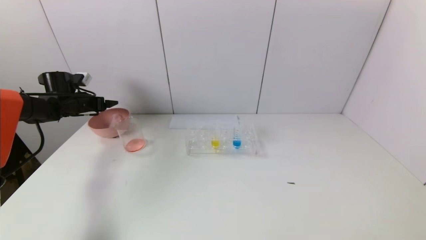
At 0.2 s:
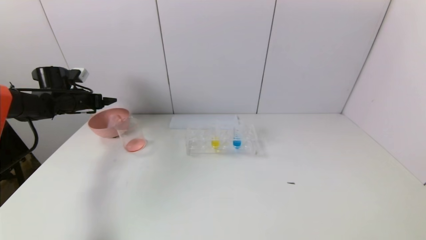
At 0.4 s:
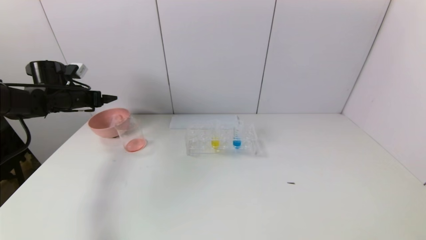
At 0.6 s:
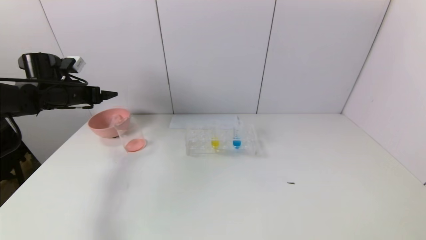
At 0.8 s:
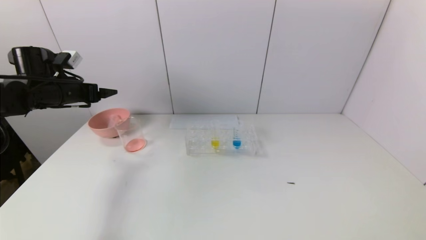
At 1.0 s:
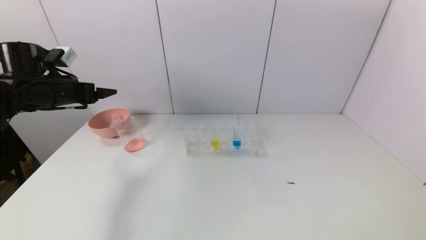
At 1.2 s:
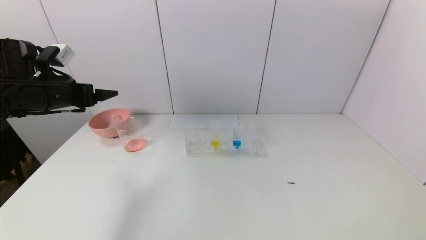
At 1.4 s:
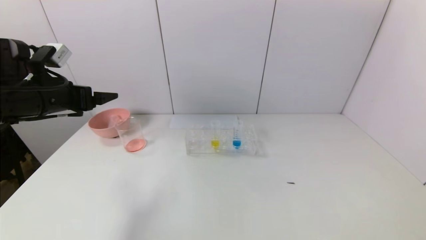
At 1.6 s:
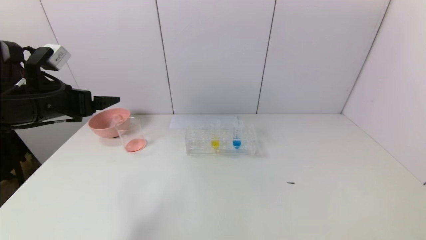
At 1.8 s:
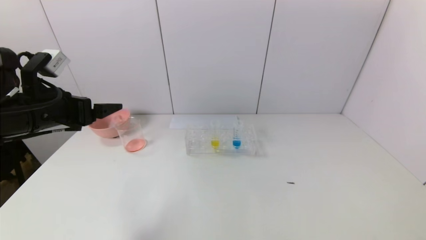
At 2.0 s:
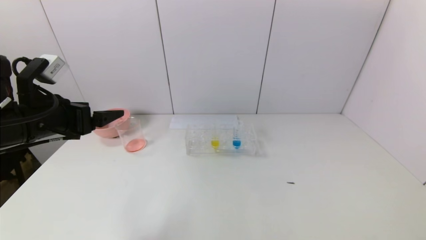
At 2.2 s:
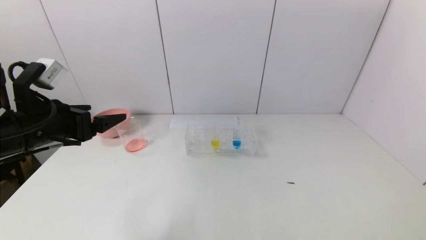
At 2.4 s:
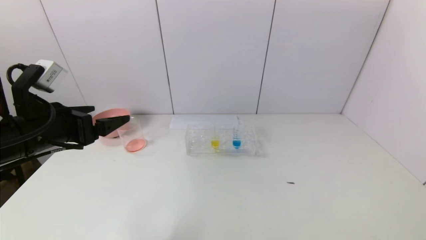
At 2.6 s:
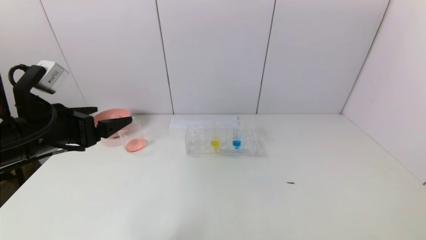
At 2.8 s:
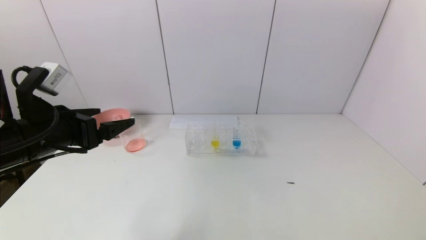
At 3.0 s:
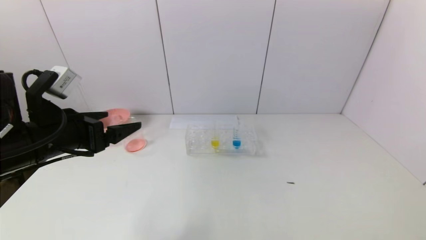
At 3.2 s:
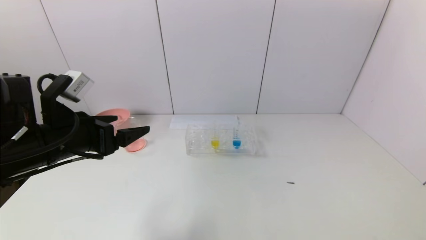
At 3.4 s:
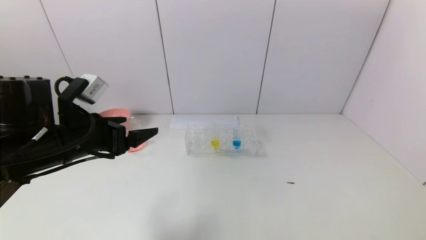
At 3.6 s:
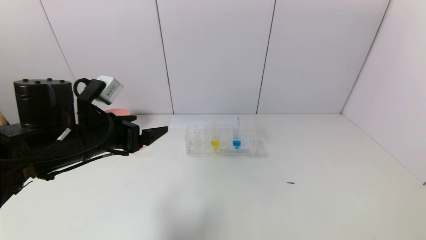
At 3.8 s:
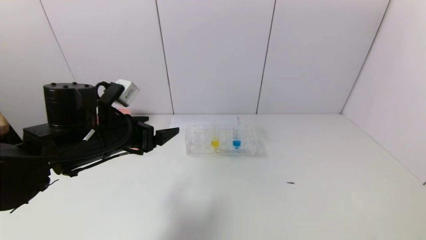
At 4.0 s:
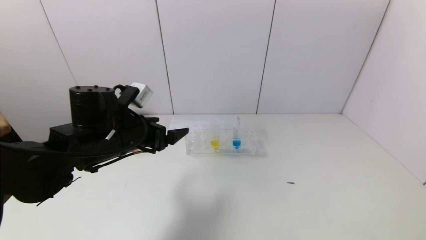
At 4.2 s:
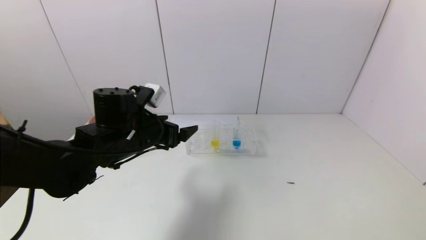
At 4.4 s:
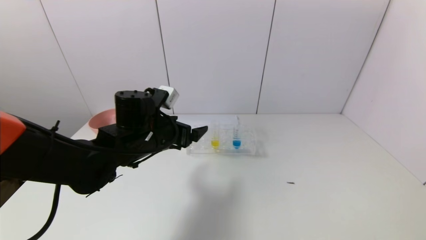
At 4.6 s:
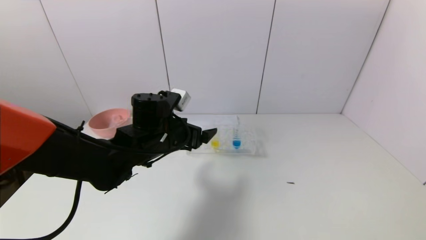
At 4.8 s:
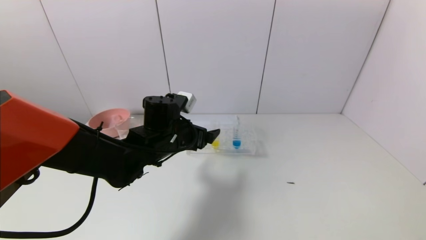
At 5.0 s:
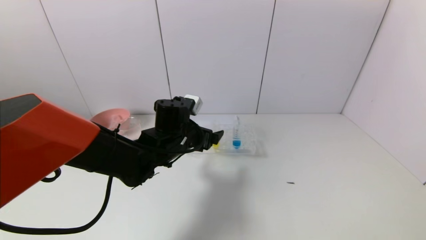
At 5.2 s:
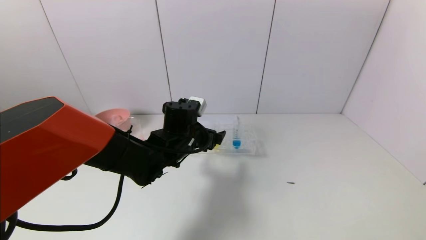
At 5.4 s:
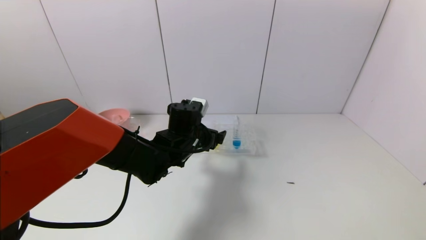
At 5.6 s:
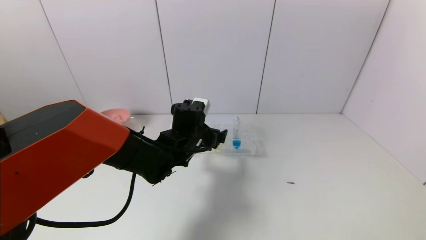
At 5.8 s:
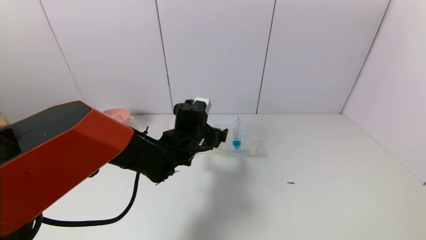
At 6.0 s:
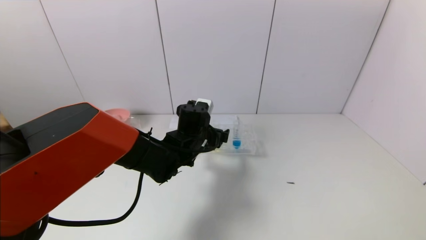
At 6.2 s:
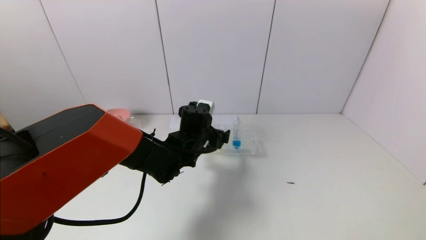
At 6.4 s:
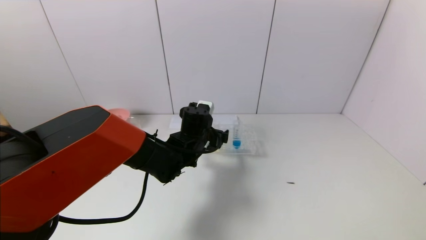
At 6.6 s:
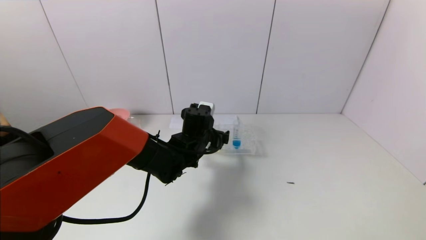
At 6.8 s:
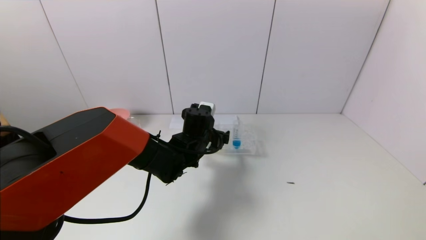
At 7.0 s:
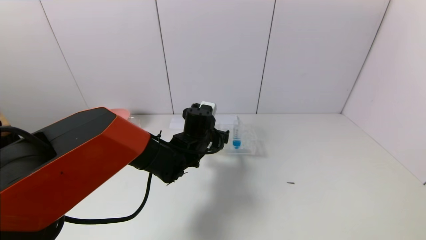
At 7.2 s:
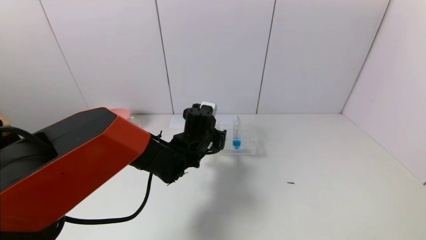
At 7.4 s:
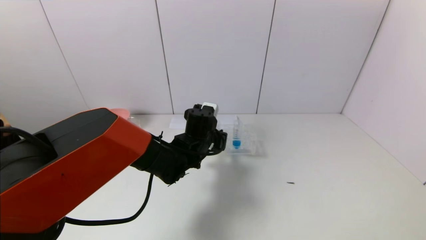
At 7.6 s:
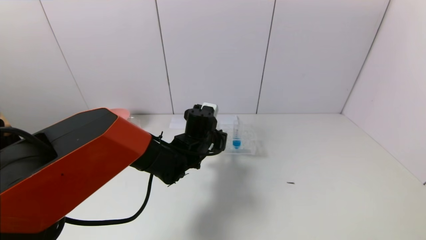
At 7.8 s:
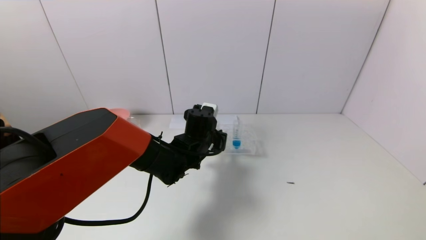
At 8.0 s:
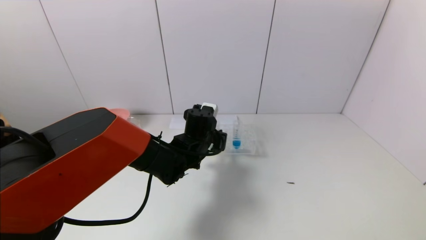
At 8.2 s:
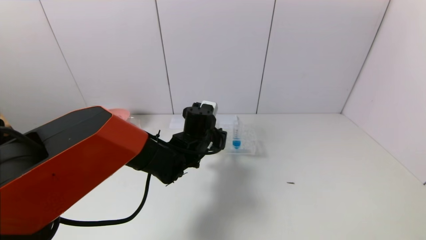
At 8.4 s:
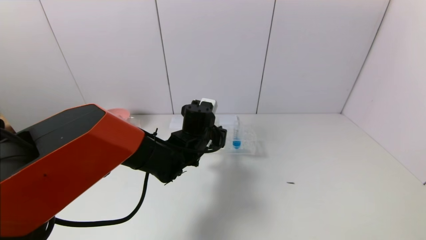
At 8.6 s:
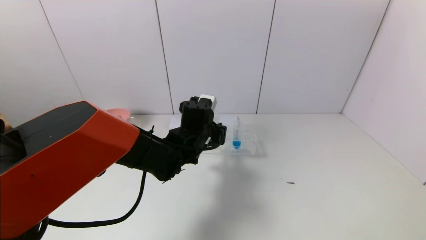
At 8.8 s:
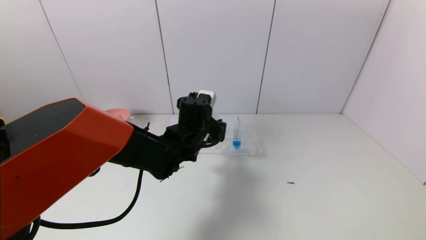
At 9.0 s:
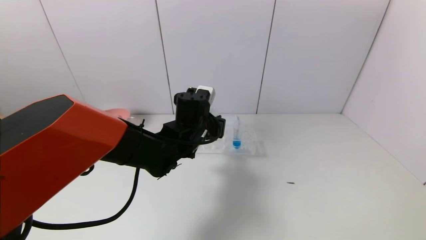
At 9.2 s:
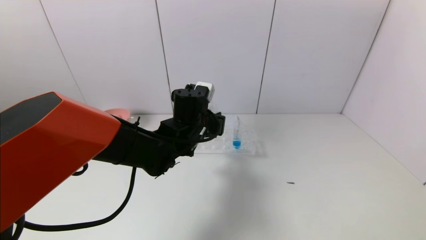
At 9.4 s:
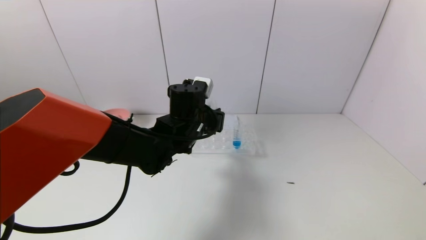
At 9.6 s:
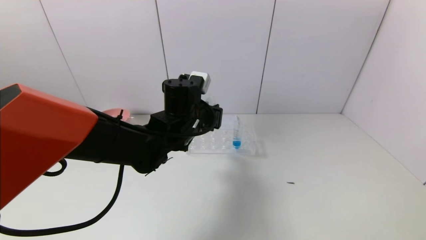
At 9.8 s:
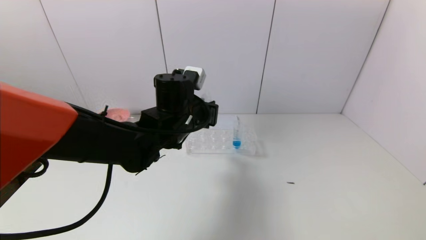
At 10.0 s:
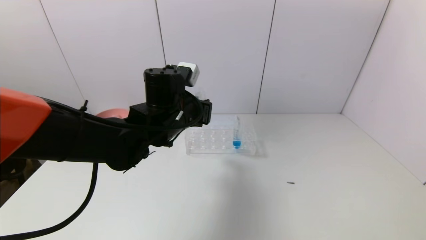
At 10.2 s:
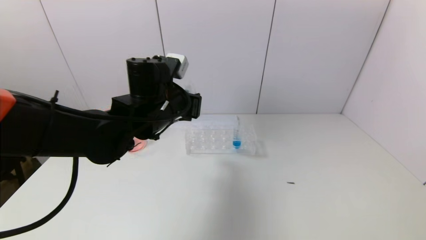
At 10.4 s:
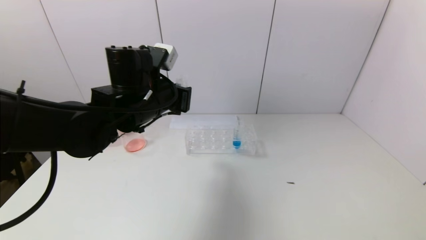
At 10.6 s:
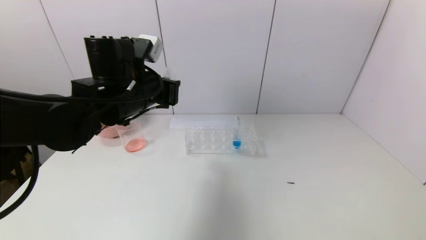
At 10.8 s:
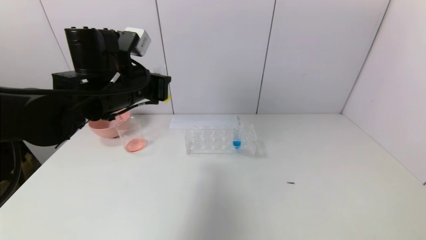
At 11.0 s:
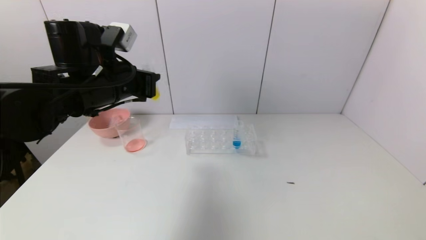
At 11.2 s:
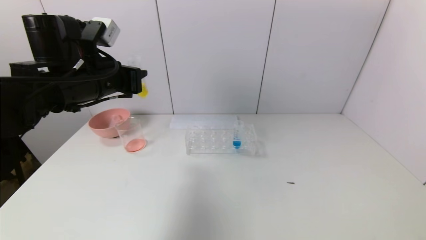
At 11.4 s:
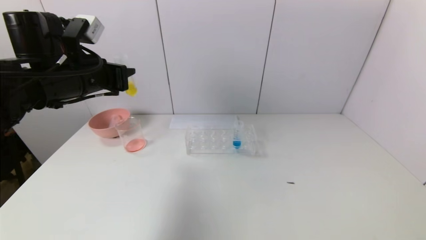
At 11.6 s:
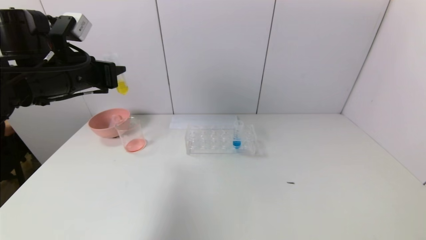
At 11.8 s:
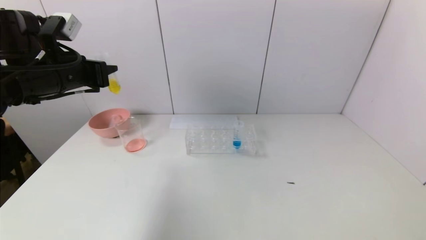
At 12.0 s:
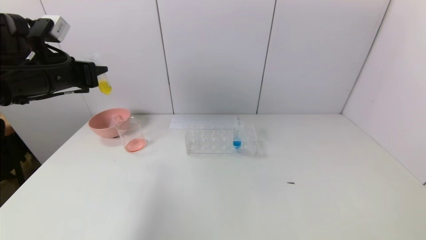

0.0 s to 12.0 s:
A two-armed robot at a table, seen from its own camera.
Task of the whole recording: pick up the test tube with yellow pigment and the test tube with red pigment by grippers and pour them into the beaker.
Step, 0.0 to 7.8 s: Grasp the yellow reagent with the left gripper.
0.0 to 1.6 s: The left gripper moves backward, to the right and upward, some 25 cm.
1.6 to 3.0 s: The left gripper travels backward by about 5 cm.
3.0 to 4.4 s: The left gripper shifts approximately 15 cm to the right, forward and downward.
4.4 to 6.0 s: The left gripper is displaced to the right and forward by some 10 cm.
6.0 to 7.6 s: The left gripper closes its fingers.
7.6 to 9.0 s: The left gripper moves roughly 5 cm.
9.0 to 10.4 s: The left gripper goes approximately 10 cm upward and to the left.
10.4 to 12.0 s: The left gripper travels to the left by some 20 cm.

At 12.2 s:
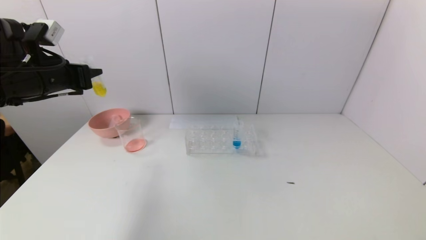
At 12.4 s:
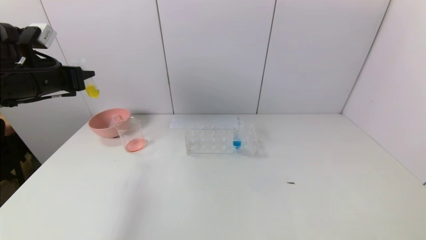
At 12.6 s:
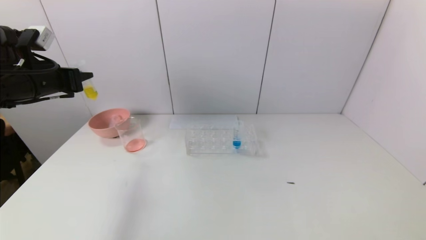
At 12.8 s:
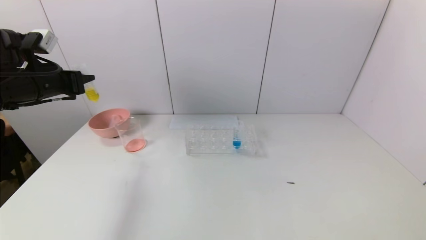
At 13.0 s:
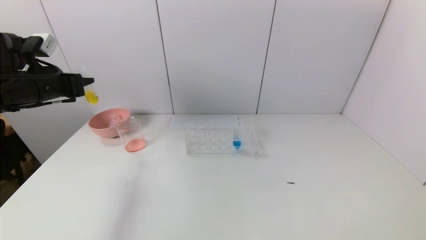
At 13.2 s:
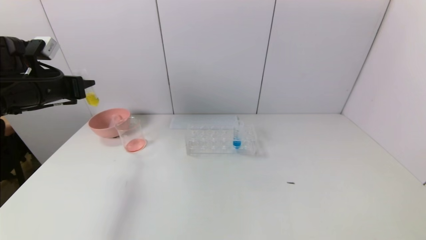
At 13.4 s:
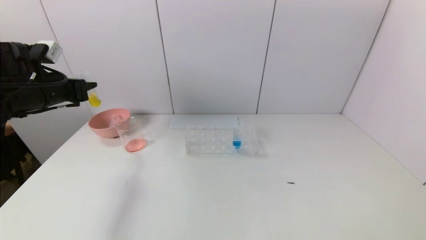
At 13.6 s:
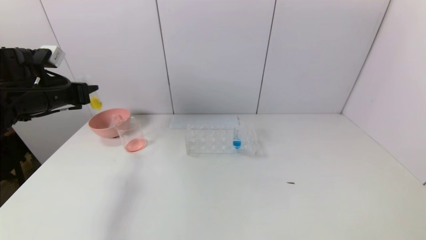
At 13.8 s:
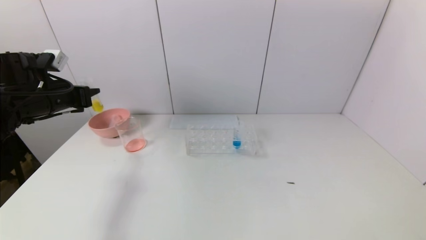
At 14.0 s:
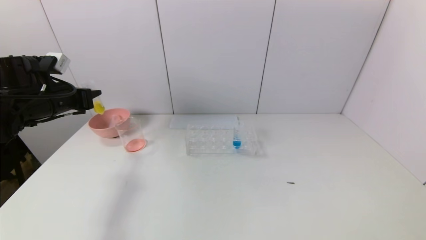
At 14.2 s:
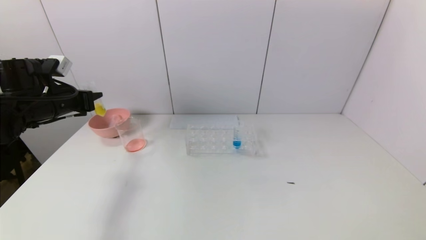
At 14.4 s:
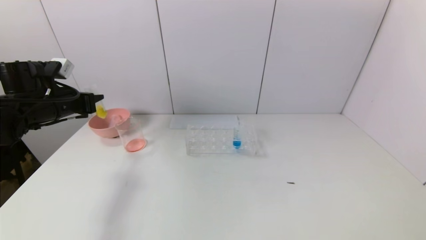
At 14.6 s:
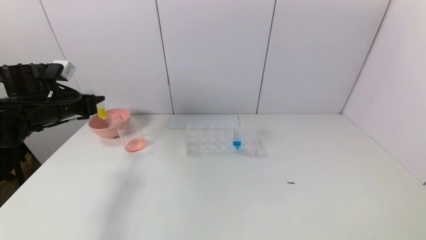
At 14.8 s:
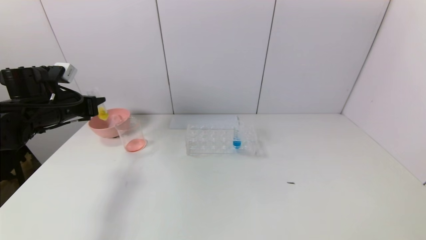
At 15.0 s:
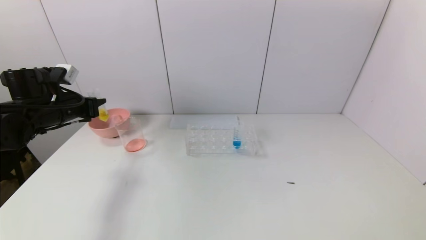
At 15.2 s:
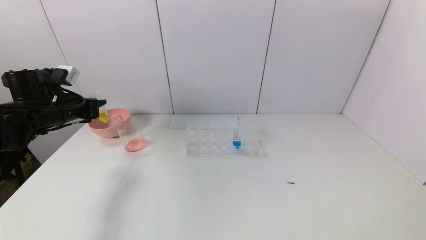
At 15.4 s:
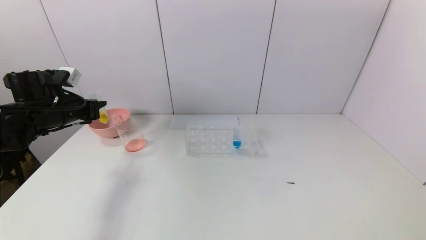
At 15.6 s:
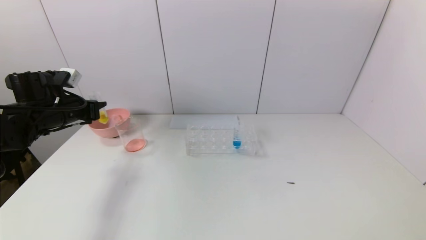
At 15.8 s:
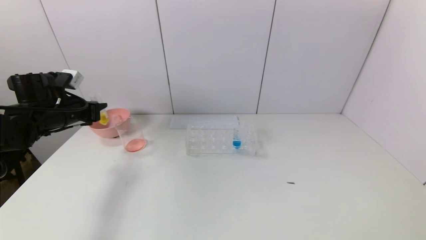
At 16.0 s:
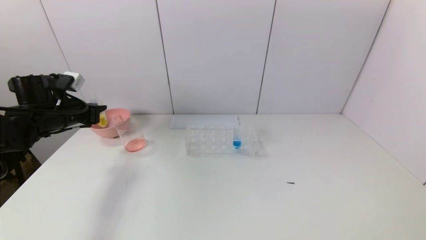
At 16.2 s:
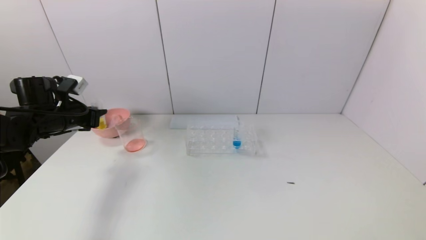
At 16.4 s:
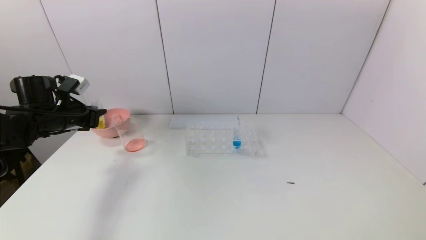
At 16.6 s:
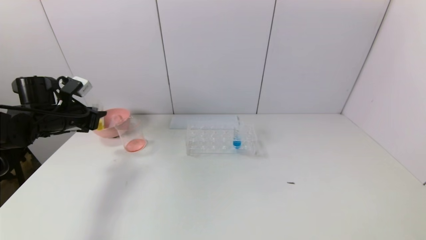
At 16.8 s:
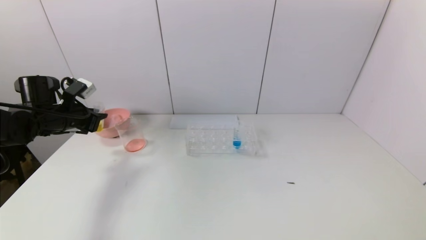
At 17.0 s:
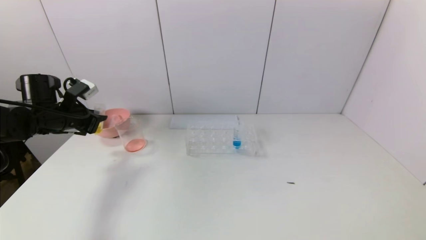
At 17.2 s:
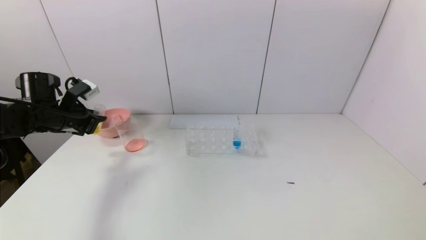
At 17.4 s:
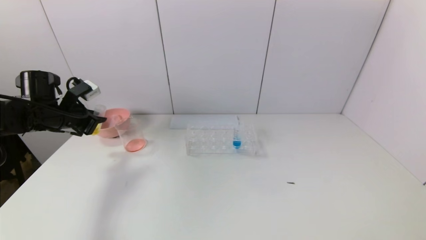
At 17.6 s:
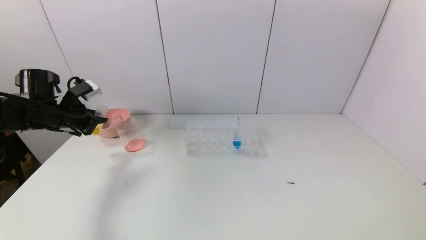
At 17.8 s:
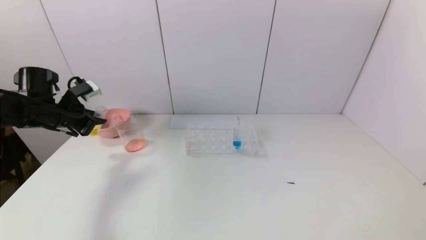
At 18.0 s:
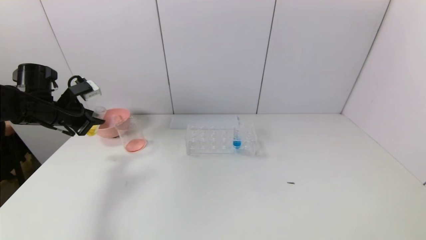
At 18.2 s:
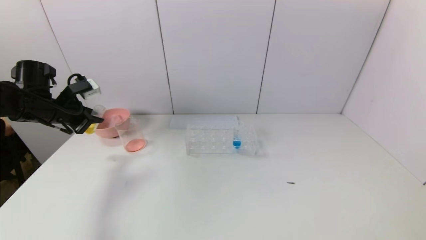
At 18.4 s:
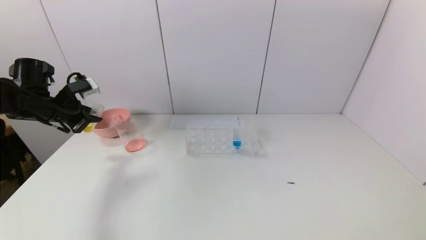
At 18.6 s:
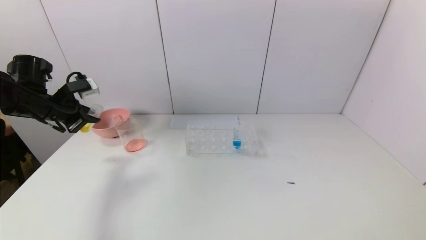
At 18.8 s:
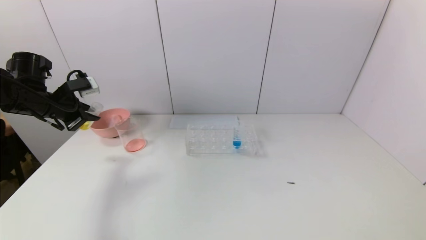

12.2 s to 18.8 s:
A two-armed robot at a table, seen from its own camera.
Task of the whole recording: pick up the test tube with yellow pigment and the test tube with red pigment by grippers and pour them into the beaker.
12.2 to 13.8 s: The left gripper is displaced downward by about 5 cm.
13.8 to 15.4 s: The grippers stay close to where they were, moving slightly.
